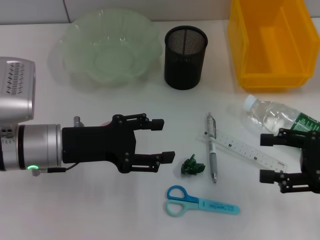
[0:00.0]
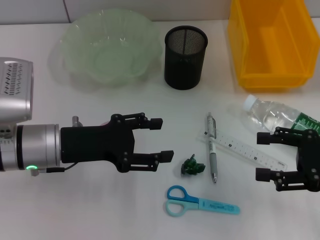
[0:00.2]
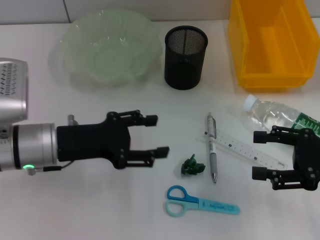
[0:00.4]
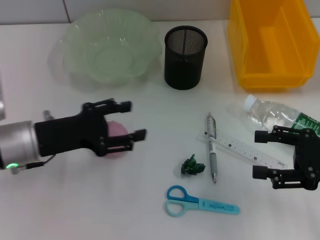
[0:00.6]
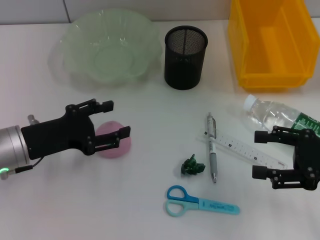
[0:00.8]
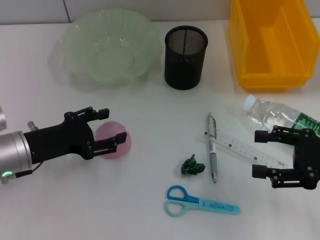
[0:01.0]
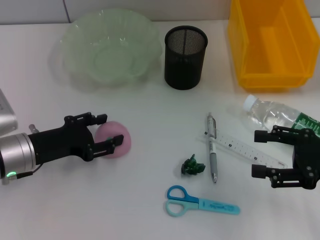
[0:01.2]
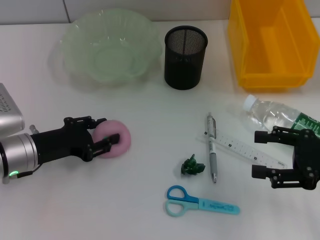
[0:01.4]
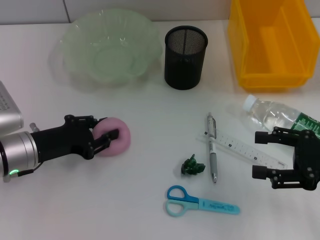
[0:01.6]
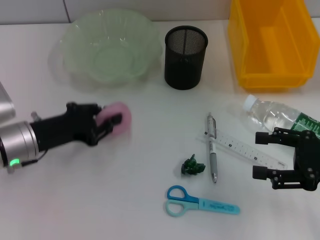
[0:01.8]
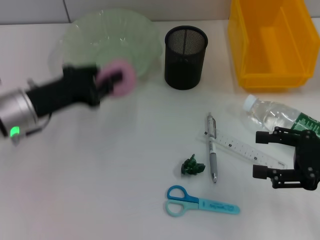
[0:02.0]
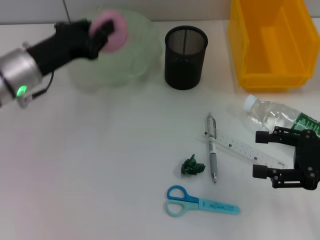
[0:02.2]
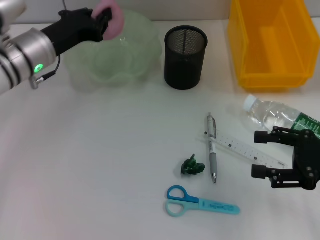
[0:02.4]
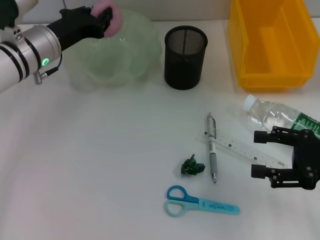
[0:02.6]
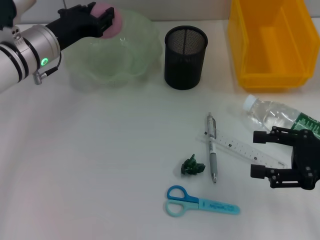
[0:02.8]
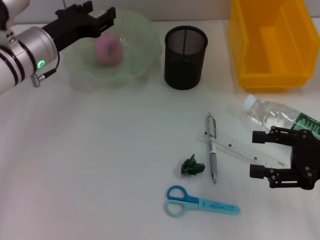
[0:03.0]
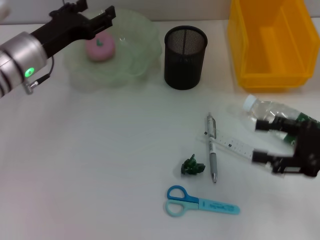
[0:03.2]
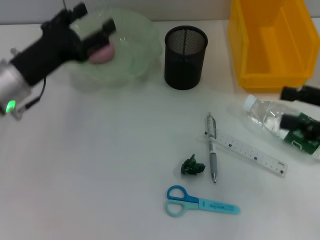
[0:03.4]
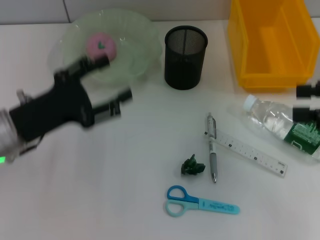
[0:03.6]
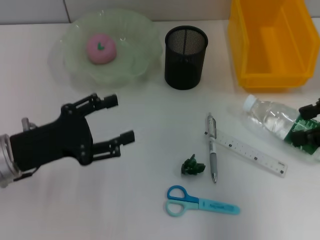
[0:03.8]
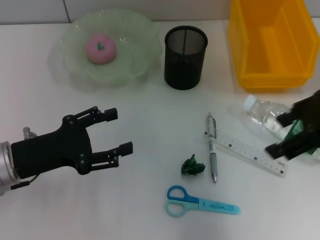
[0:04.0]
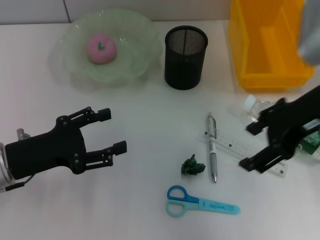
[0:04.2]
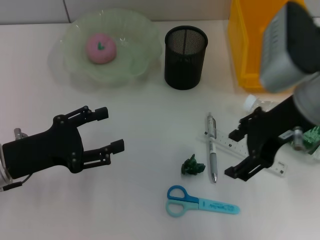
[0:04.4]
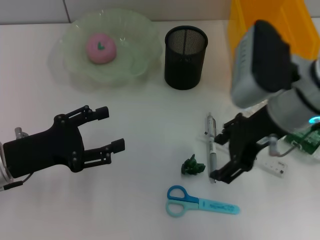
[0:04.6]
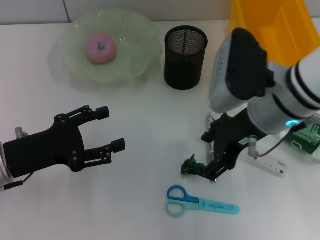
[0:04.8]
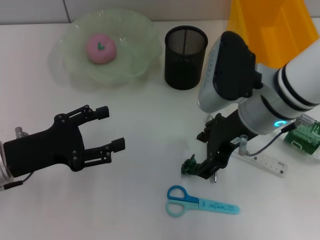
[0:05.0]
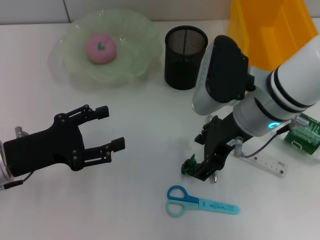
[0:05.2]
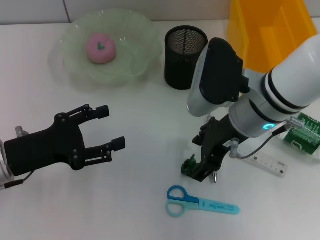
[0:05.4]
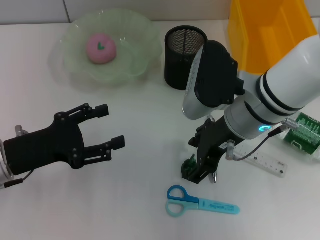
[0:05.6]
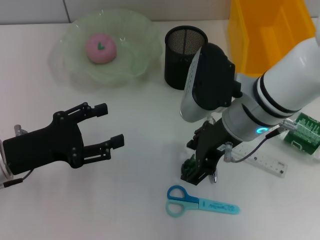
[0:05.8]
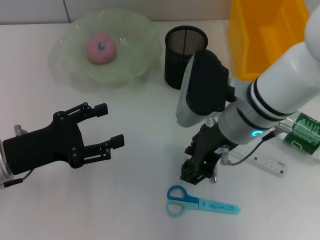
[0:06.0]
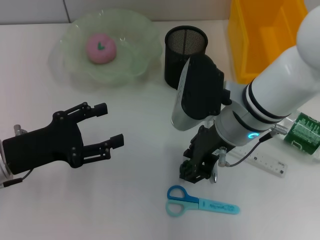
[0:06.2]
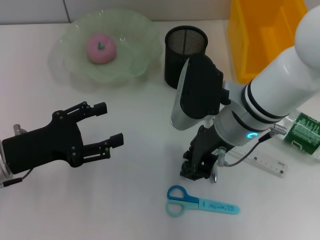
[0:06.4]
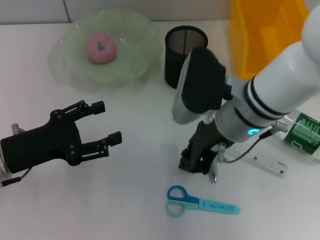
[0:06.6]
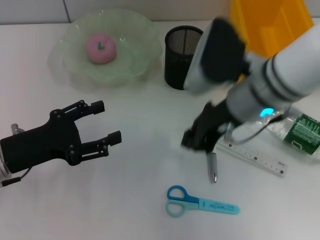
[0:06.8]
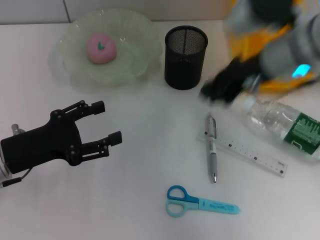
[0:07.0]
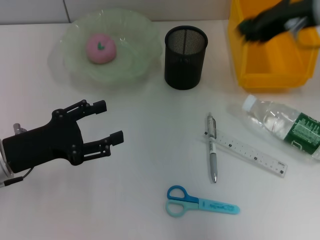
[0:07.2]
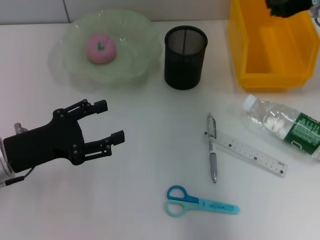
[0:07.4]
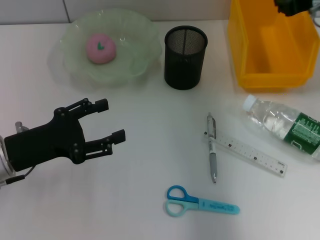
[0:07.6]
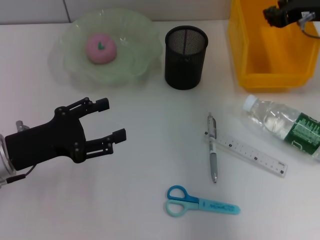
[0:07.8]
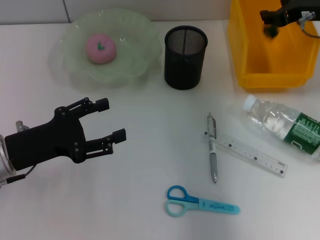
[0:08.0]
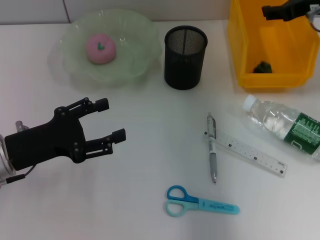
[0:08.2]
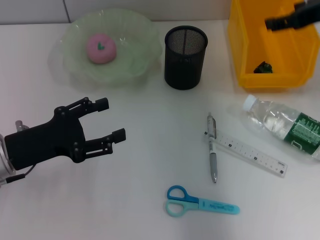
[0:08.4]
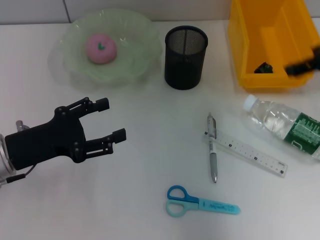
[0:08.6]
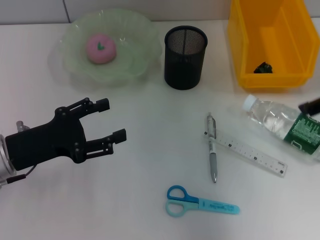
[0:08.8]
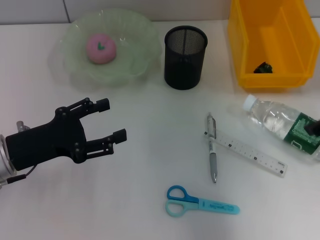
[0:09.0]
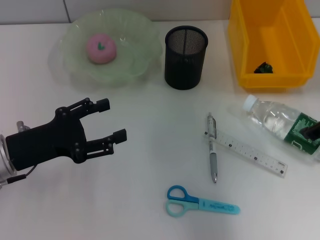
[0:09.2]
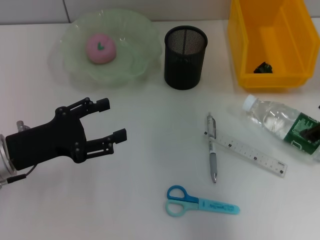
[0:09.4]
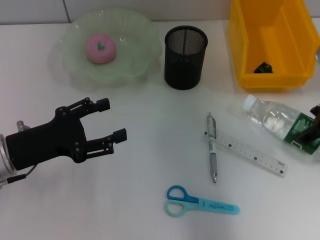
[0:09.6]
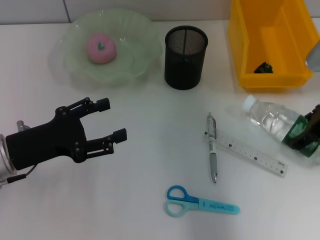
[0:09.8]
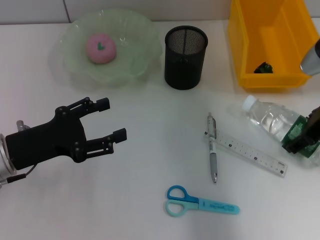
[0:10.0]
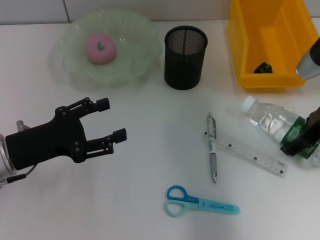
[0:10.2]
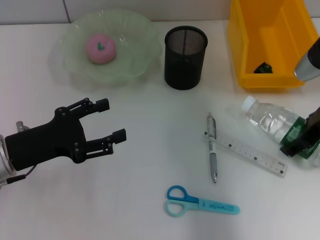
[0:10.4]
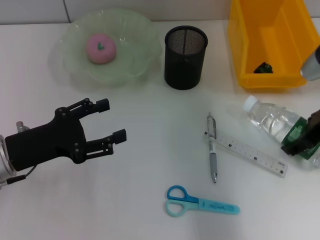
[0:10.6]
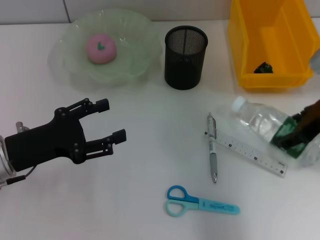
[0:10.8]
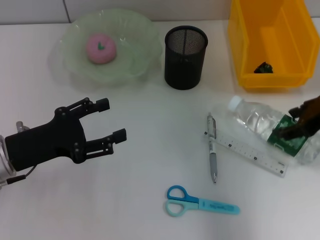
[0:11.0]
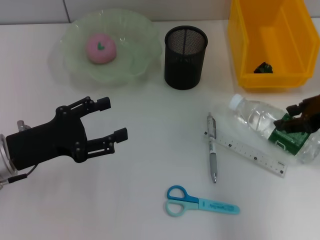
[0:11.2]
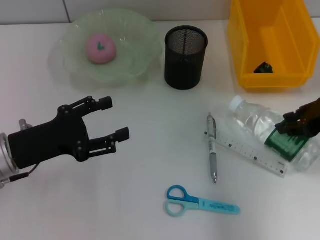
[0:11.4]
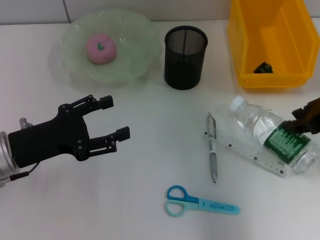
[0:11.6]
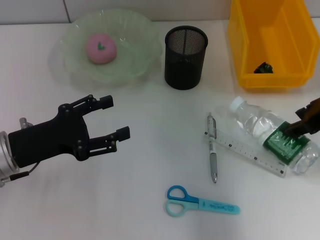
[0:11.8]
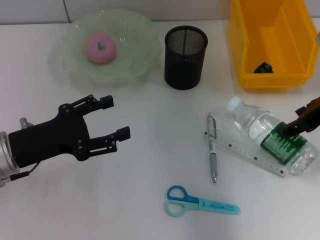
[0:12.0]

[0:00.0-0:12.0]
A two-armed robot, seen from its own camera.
Step, 0:00.0 to 0:01.6: Grab the peach with the left hand.
Step, 0:01.8 to 0:03.0: Place the peach into the fruit bowl with the left hand.
Step, 0:03.2 to 0:06.4: Grab the plastic with the right hand.
Step, 0:06.6 to 0:08.6: Place the plastic into the trash can with the right hand.
0:00.0 to 0:01.6: The left gripper is displaced to the left by approximately 5 cm, and closes.
0:01.6 to 0:03.0: The left gripper shifts roughly 15 cm forward and upward, and closes up.
0:03.0 to 0:04.4: The left gripper is displaced backward by about 15 cm, and opens its fingers. Meanwhile the right gripper is displaced to the left, upward and forward by roughly 20 cm.
0:04.4 to 0:06.0: The right gripper goes about 10 cm to the left and downward.
0:06.0 to 0:07.6: The right gripper heads to the right and forward, covering some 20 cm, and closes its fingers.
0:07.6 to 0:09.0: The right gripper heads backward, covering roughly 10 cm, and opens its fingers.
0:09.0 to 0:10.4: The right gripper shifts some 10 cm downward.

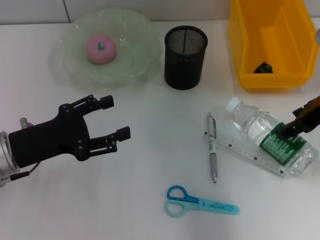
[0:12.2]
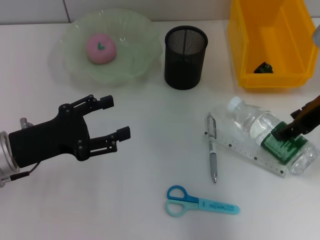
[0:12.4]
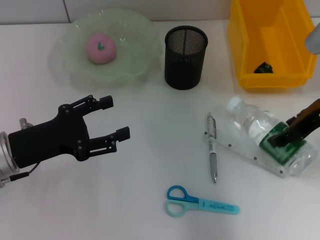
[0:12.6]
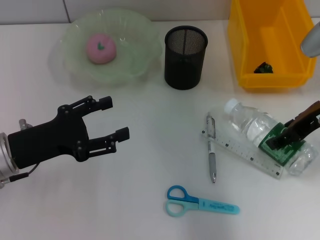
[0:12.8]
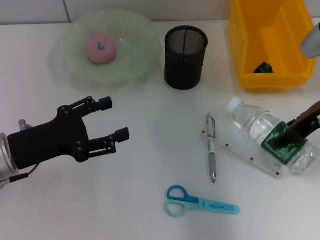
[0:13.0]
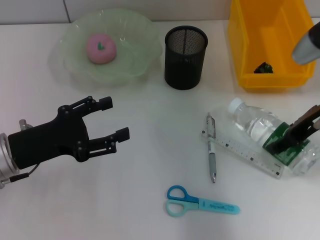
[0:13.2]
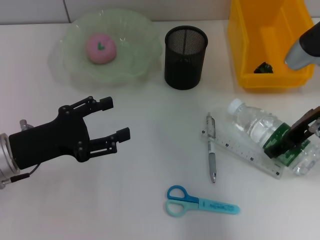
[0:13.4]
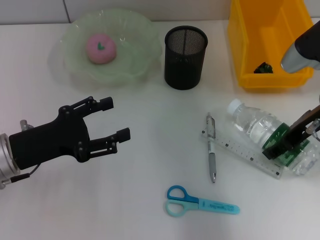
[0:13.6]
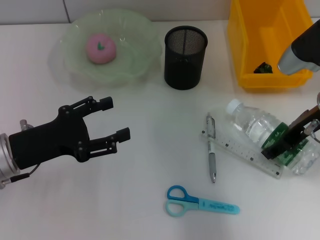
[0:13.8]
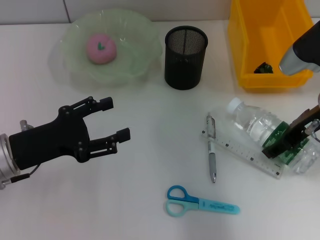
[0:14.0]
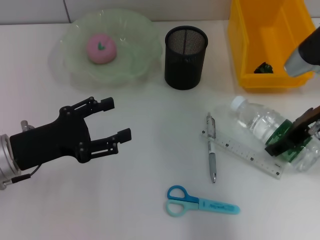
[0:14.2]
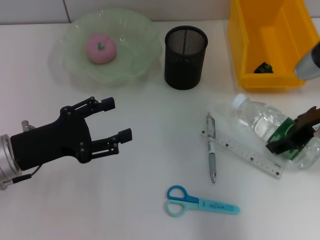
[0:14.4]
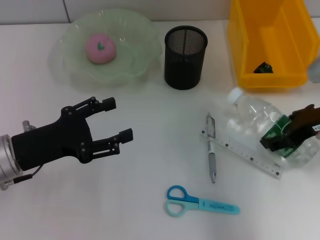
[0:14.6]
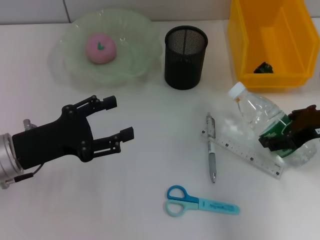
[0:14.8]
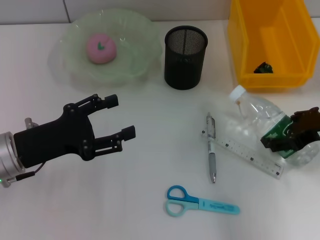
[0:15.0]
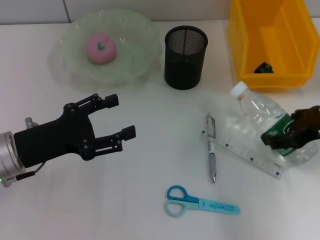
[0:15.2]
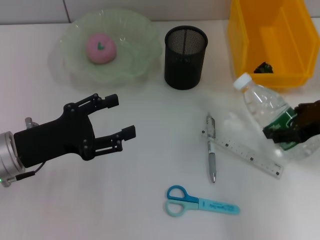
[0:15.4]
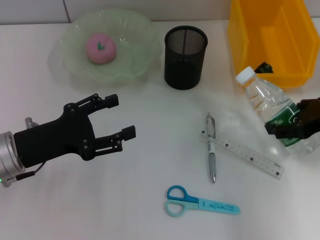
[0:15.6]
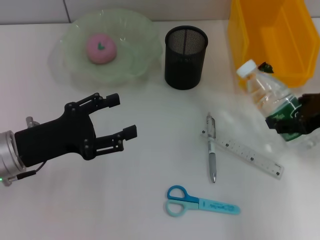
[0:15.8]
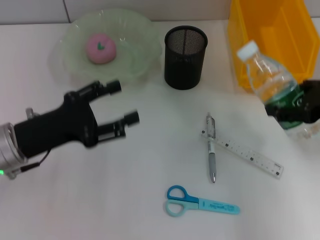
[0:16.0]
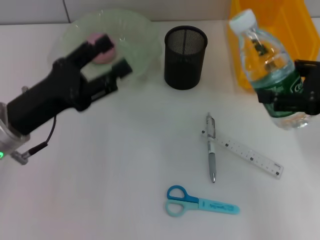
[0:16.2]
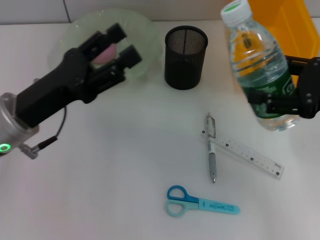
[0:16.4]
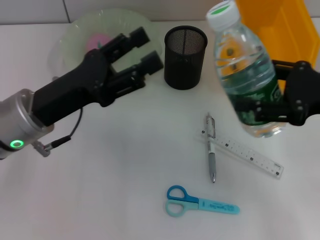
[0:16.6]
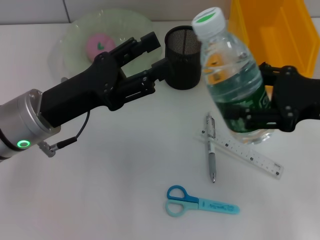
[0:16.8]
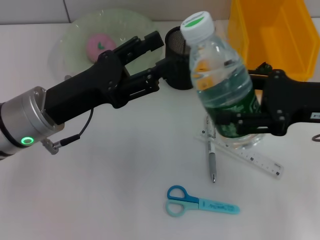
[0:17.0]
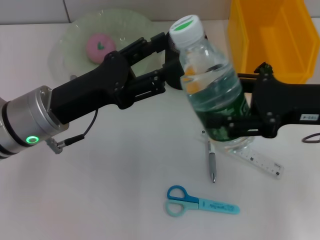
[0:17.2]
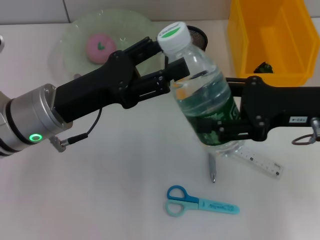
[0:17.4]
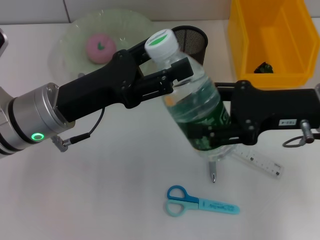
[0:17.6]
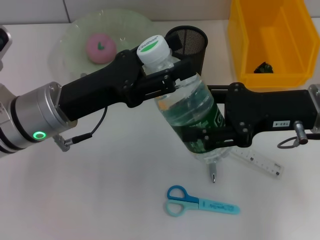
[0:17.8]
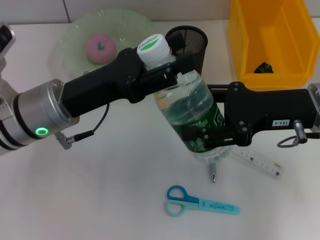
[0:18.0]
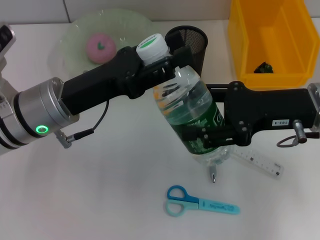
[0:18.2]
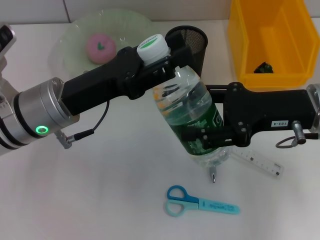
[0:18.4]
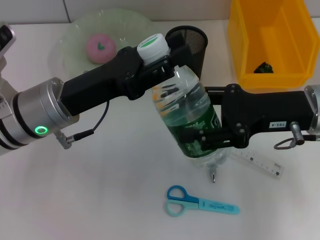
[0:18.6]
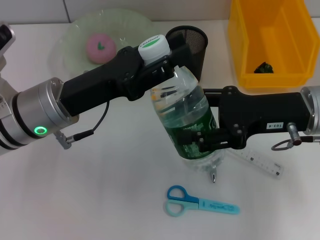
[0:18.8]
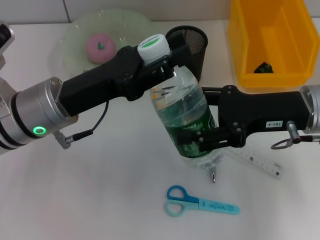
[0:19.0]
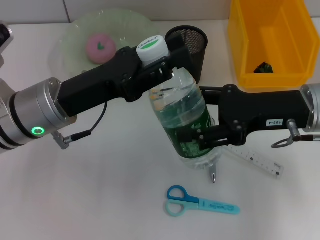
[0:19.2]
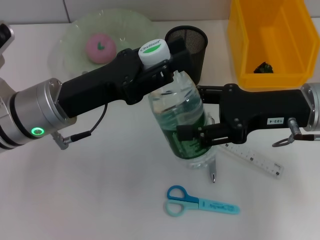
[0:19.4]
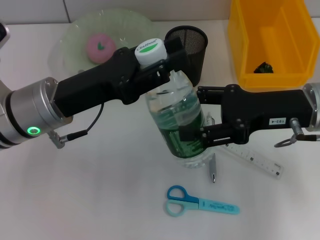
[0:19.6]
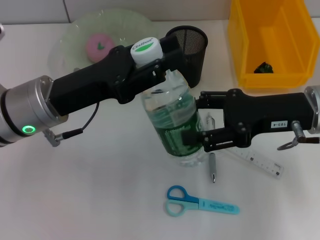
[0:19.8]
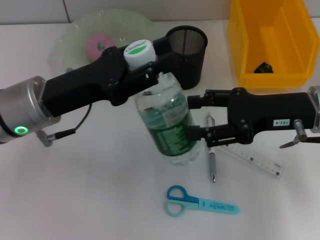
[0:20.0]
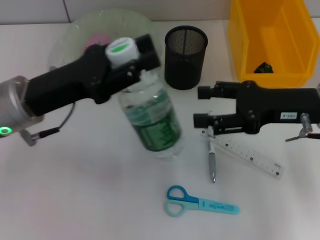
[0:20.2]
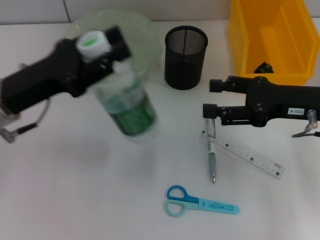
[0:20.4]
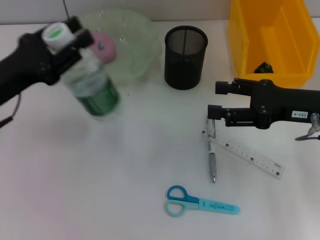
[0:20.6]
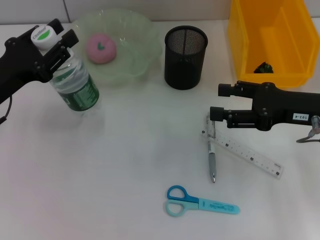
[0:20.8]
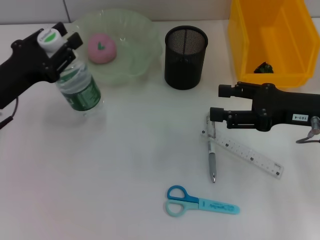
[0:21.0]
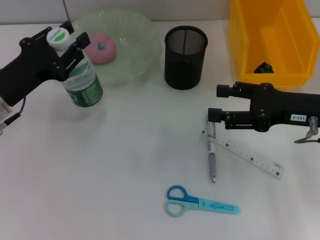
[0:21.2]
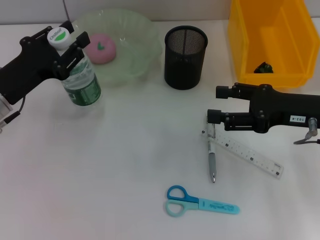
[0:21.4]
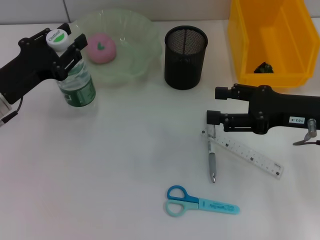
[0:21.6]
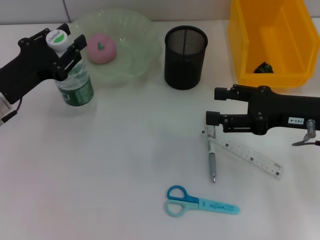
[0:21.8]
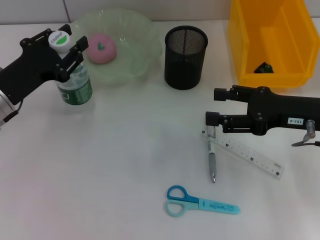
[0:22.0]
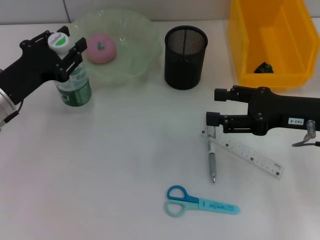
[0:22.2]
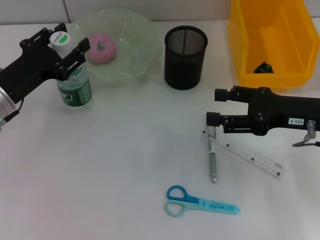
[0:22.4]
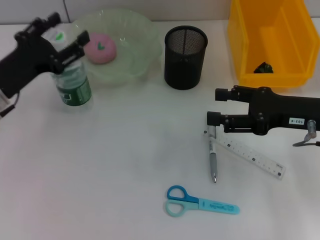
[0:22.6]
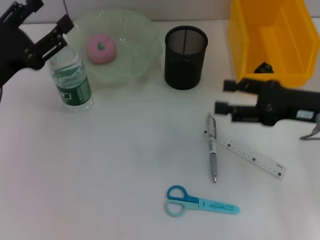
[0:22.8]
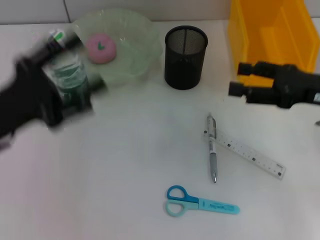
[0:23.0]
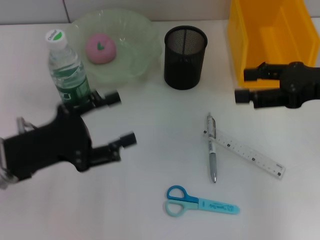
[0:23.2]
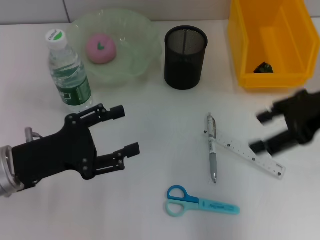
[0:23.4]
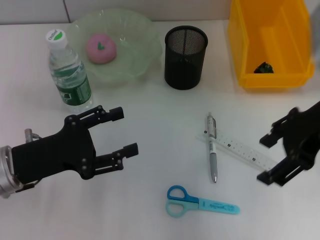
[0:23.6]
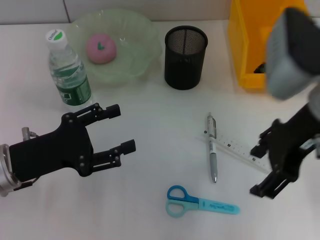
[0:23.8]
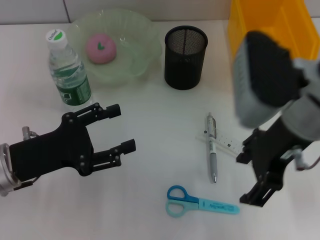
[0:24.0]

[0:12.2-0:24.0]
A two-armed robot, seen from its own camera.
Step, 0:12.2 to 0:14.4: Grab the water bottle with the right hand.
Step, 0:14.6 to 0:20.0: Pass the water bottle from the right hand to the left hand.
Step, 0:20.2 to 0:22.8: Place the water bottle on the table with the left hand.
0:12.2 to 0:13.6: There are only small adjustments of the grippers.
0:13.6 to 0:15.2: The right gripper ends up some 5 cm from where it was.
0:15.2 to 0:16.6: The right gripper changes place by about 5 cm; the left gripper moves approximately 5 cm.
0:16.6 to 0:18.2: The right gripper goes about 5 cm to the left.
0:18.2 to 0:19.6: The left gripper closes up.
0:19.6 to 0:21.0: The left gripper goes approximately 10 cm to the left; the right gripper moves approximately 5 cm.
0:21.0 to 0:22.6: The left gripper opens.
0:22.6 to 0:24.0: The right gripper goes about 15 cm to the left and upward. The left gripper is displaced backward by approximately 10 cm.
